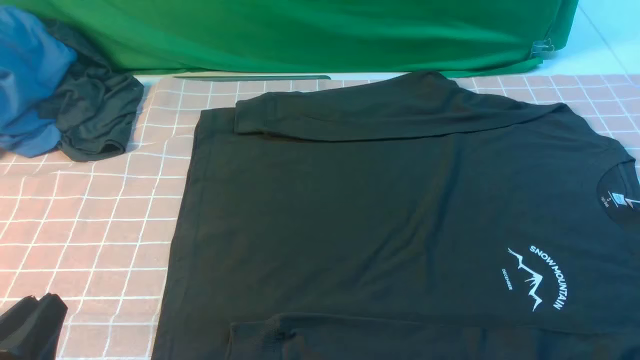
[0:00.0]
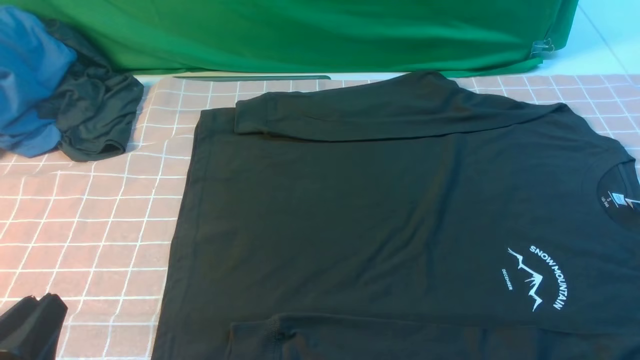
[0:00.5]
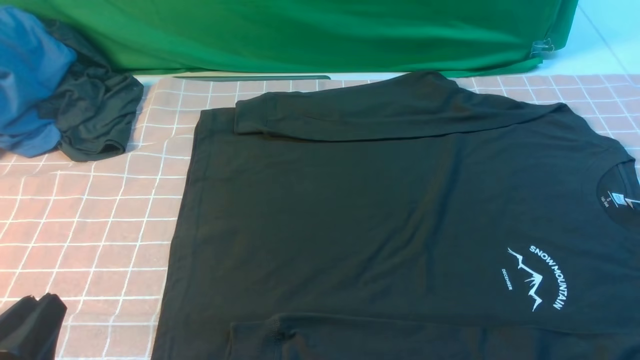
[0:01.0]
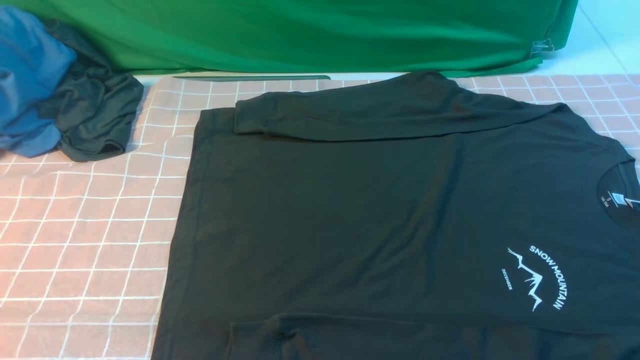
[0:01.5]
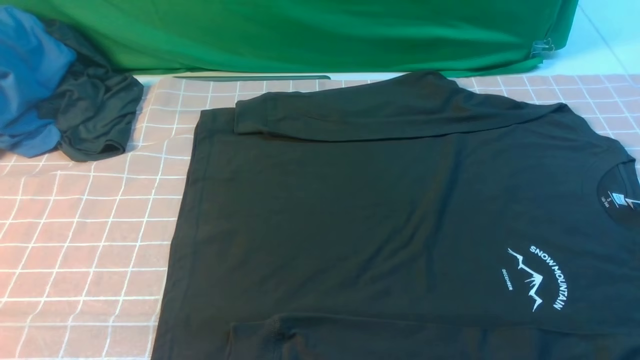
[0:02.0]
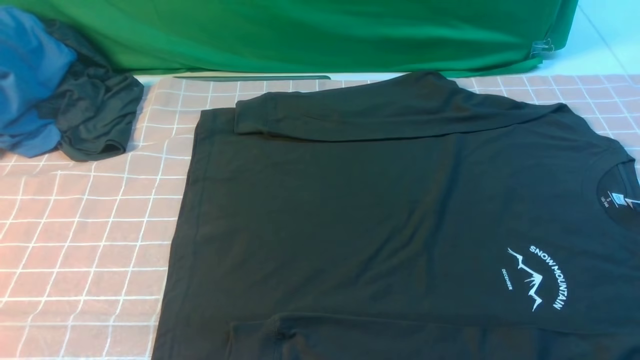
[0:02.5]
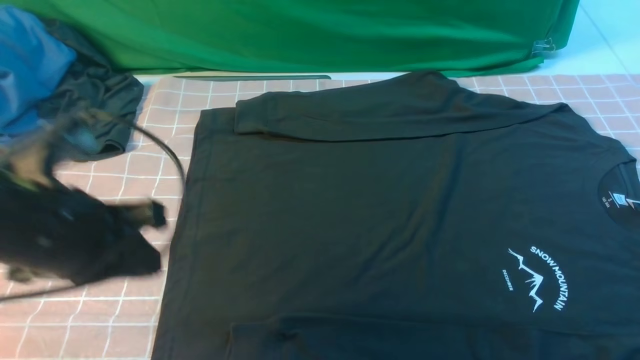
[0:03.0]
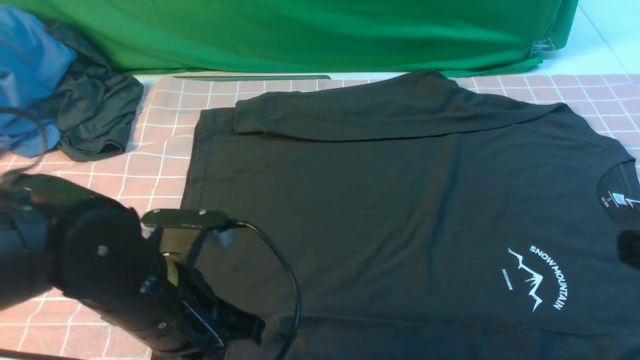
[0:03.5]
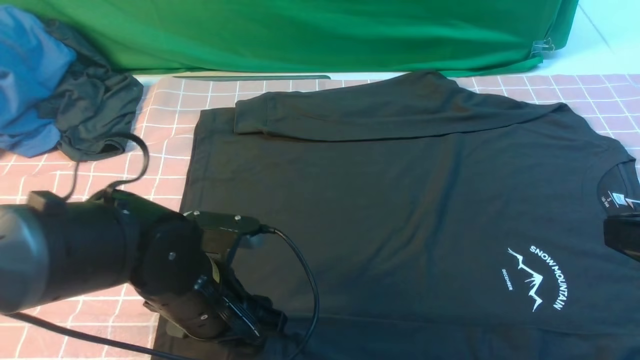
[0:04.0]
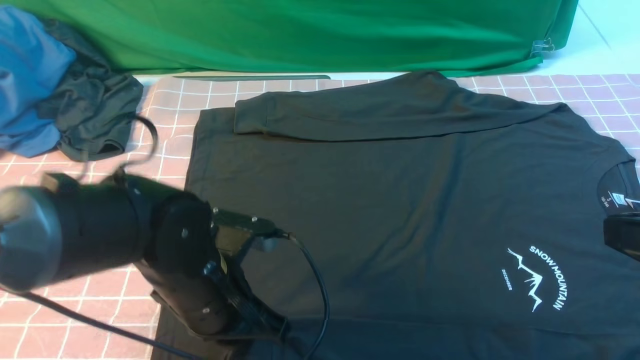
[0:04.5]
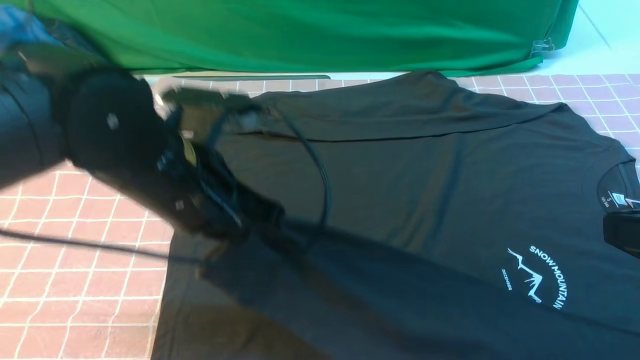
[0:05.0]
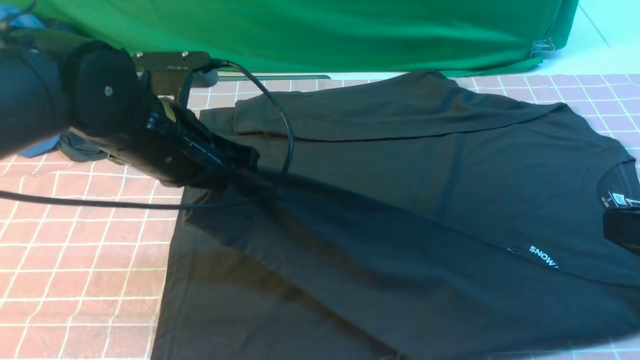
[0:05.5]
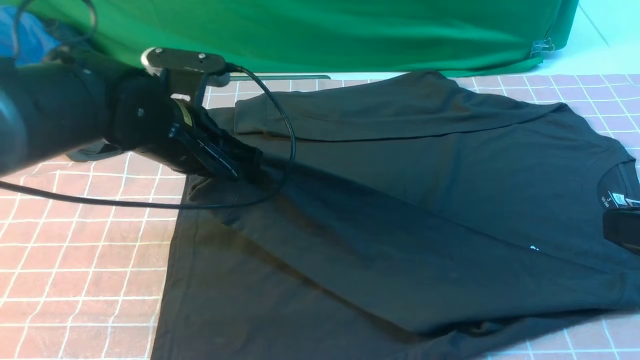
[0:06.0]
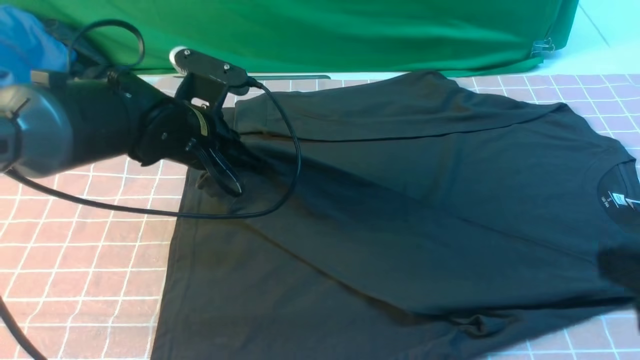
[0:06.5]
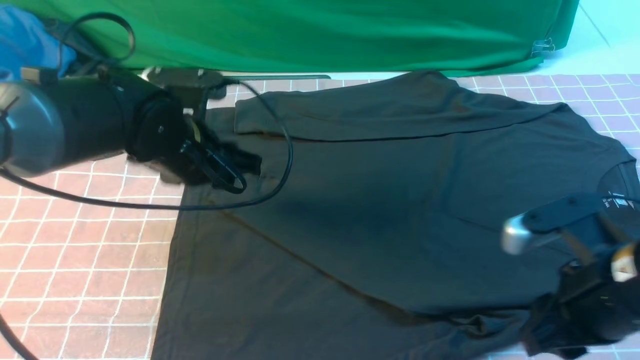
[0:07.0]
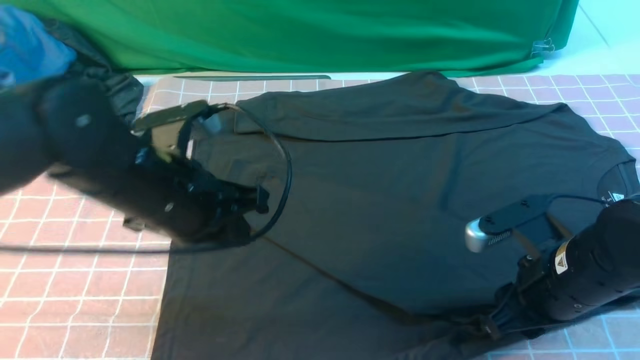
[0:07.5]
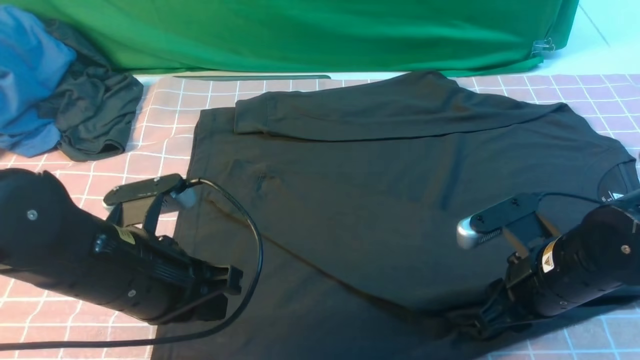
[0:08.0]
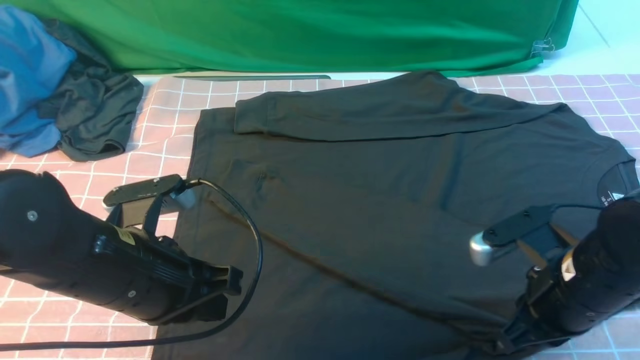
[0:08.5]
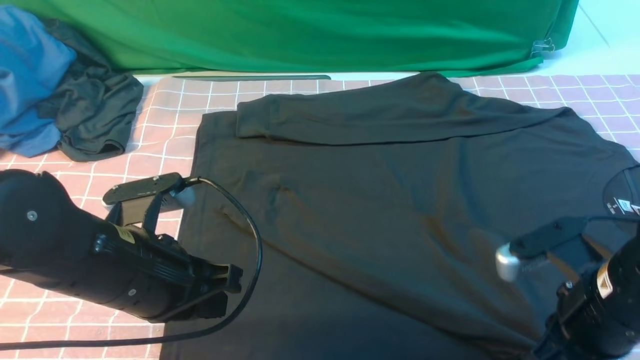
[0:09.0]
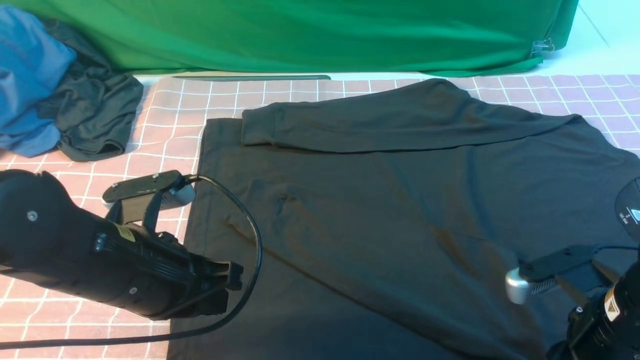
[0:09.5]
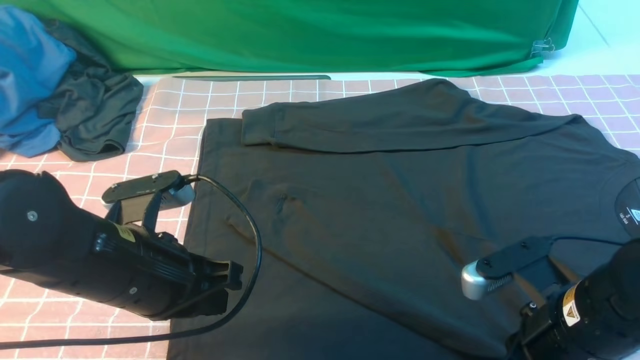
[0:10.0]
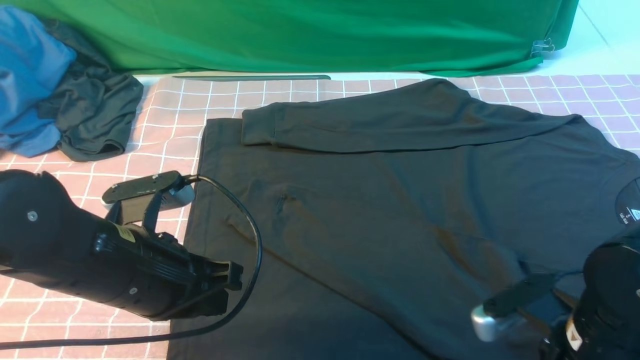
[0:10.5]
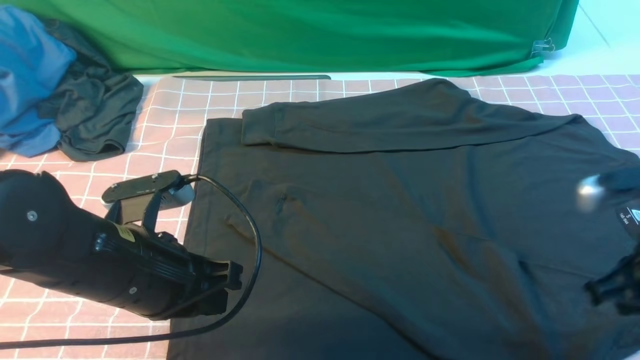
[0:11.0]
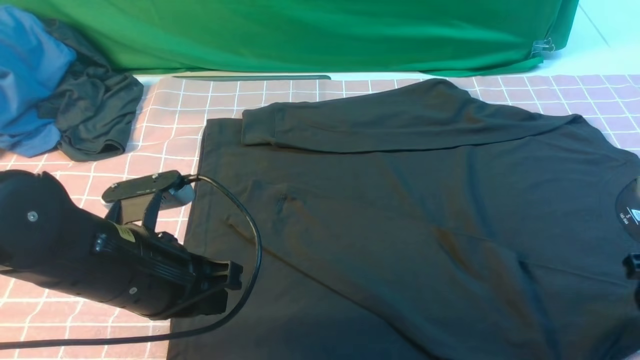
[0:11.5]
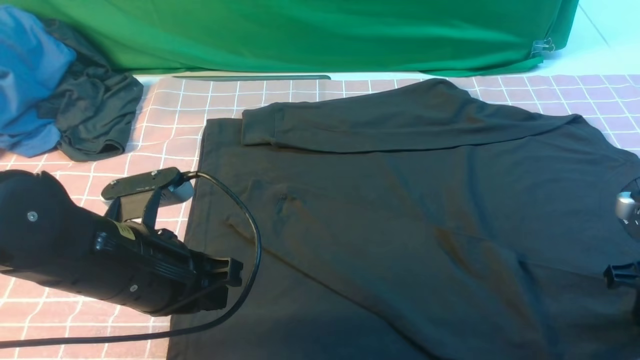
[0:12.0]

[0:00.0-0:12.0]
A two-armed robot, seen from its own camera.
Step, 0:00.0 to 0:04.5: use the left arm to clamp the cuff closest to it.
Step, 0:05.0 to 0:06.5: use the left arm to drag and place the cuff at the centered position on the left edge of the fabric.
0:00.0 to 0:02.0: The left gripper travels upward by about 5 cm.
0:02.0 to 0:04.0: The right gripper goes about 15 cm upward, forward and to the left, and closes its fingers, while the left gripper travels forward, to the right and downward by some 25 cm, and opens.
0:04.0 to 0:06.0: The left gripper moves forward and upward, roughly 15 cm, and closes its fingers.
0:06.0 to 0:08.0: The left gripper travels backward by roughly 15 cm, and opens, then closes again. The right gripper heads downward and forward, covering some 20 cm, and opens.
0:08.0 to 0:10.0: The right gripper heads backward, covering roughly 5 cm.
0:10.0 to 0:12.0: The right gripper heads to the right and forward, covering approximately 15 cm, and opens and closes again.

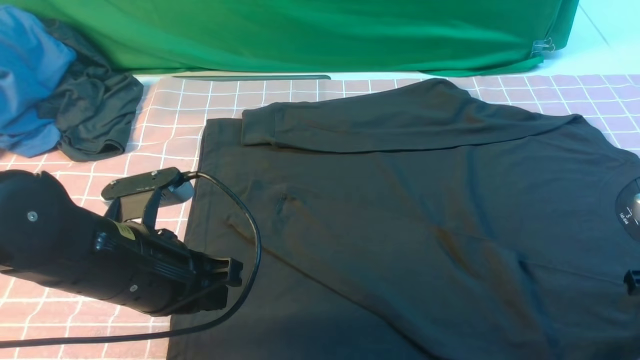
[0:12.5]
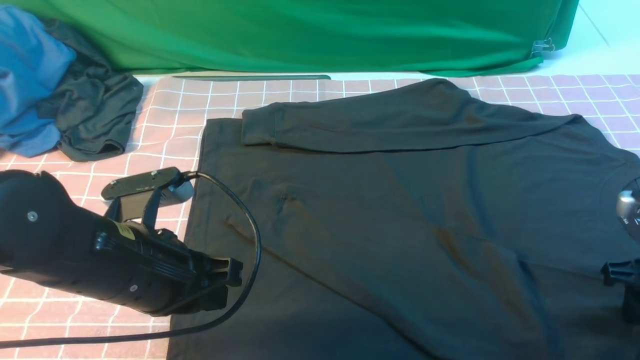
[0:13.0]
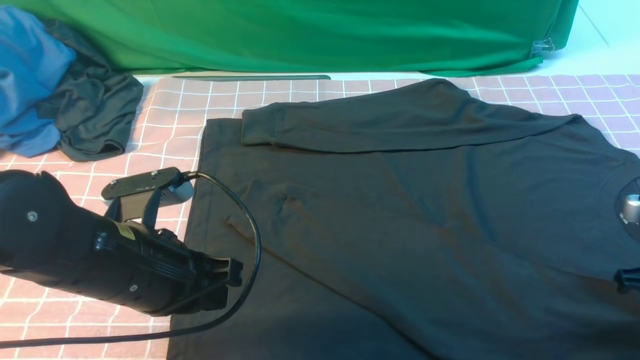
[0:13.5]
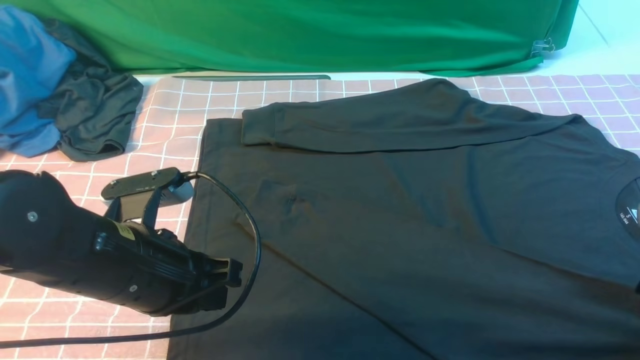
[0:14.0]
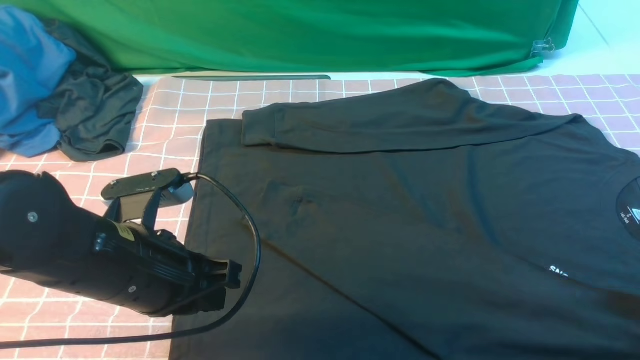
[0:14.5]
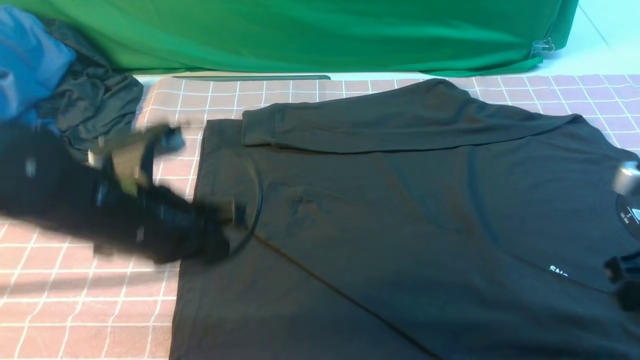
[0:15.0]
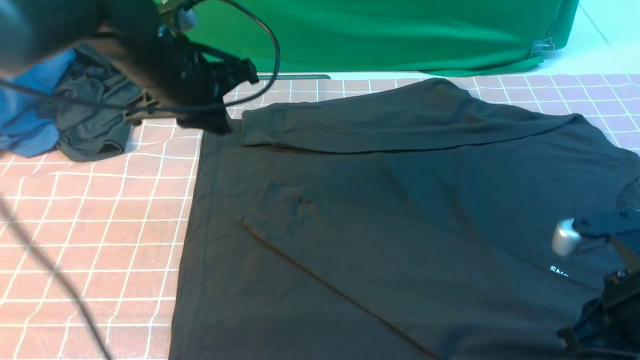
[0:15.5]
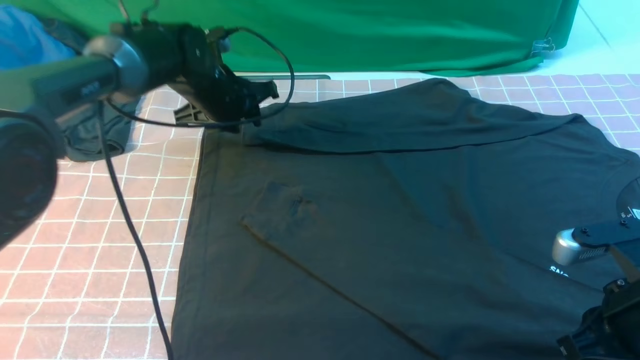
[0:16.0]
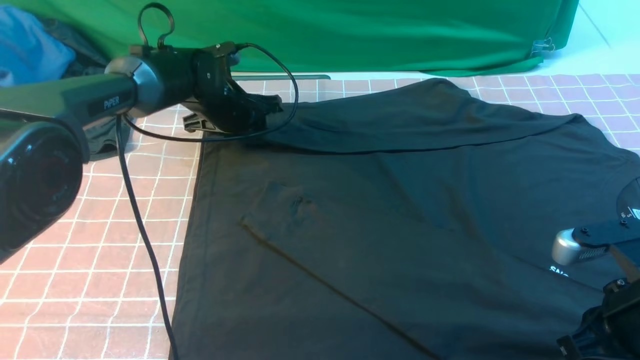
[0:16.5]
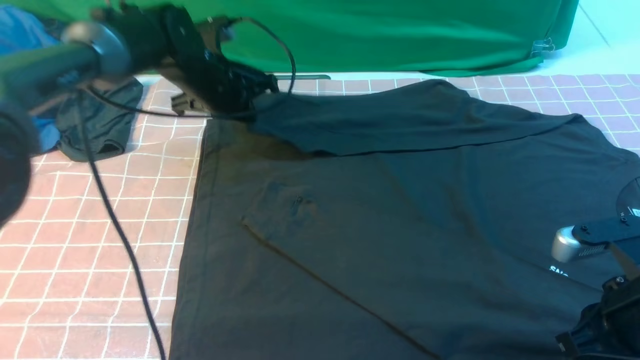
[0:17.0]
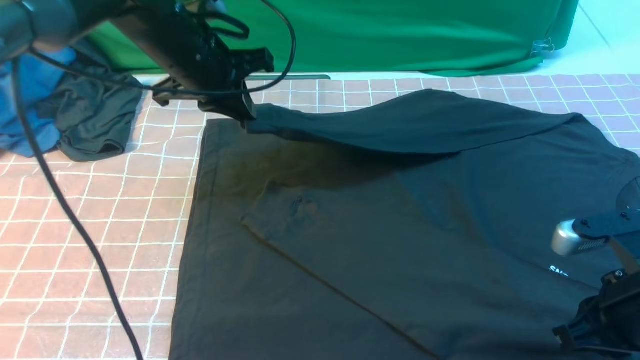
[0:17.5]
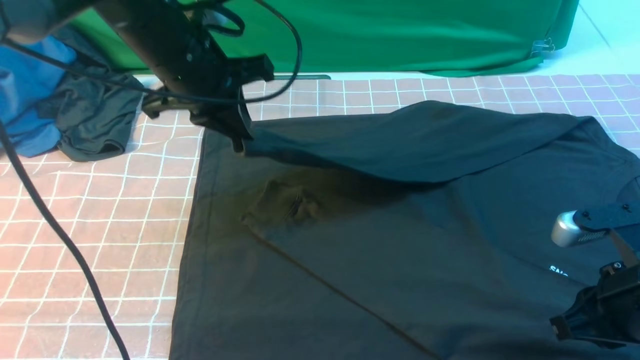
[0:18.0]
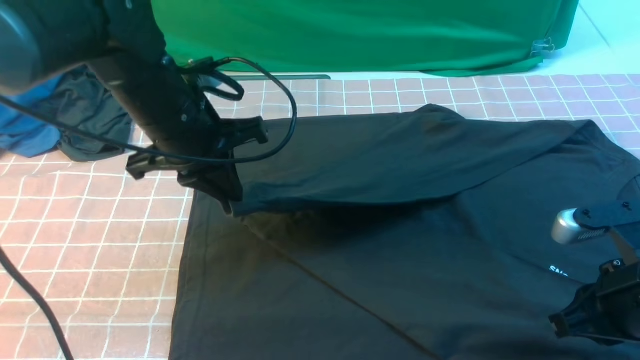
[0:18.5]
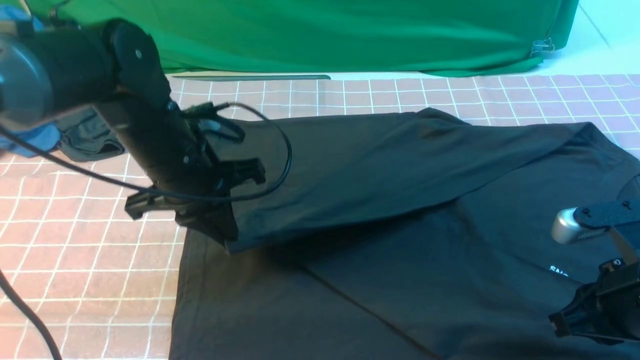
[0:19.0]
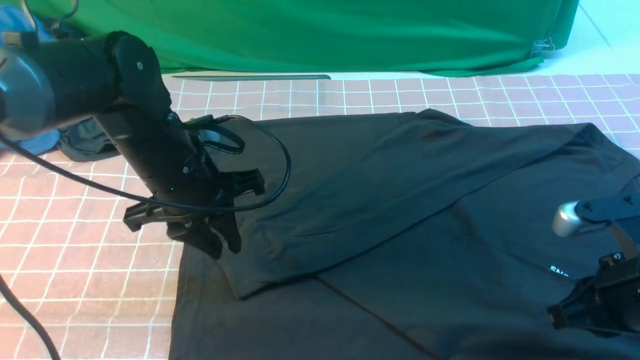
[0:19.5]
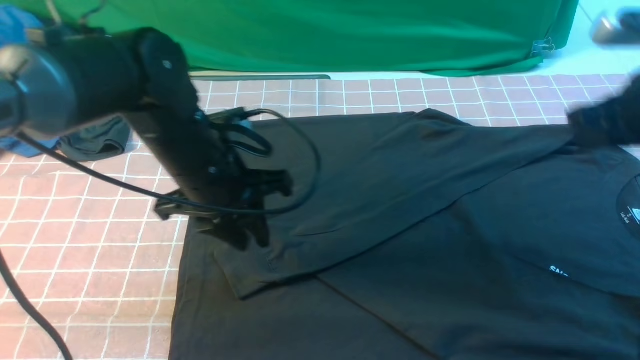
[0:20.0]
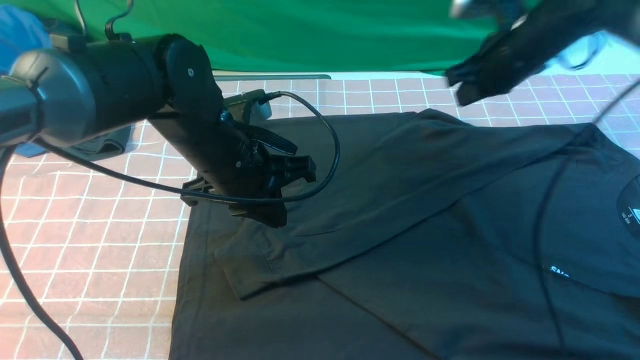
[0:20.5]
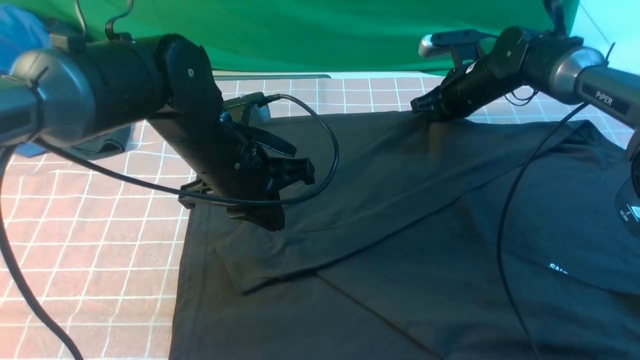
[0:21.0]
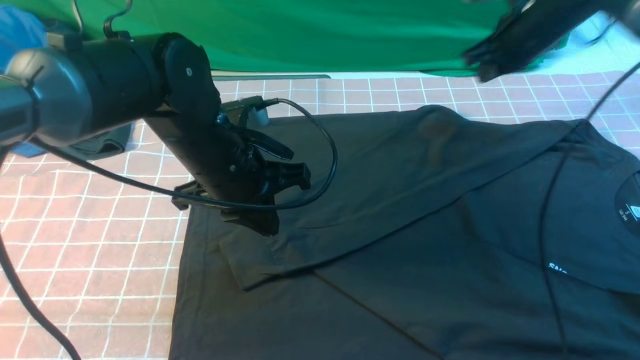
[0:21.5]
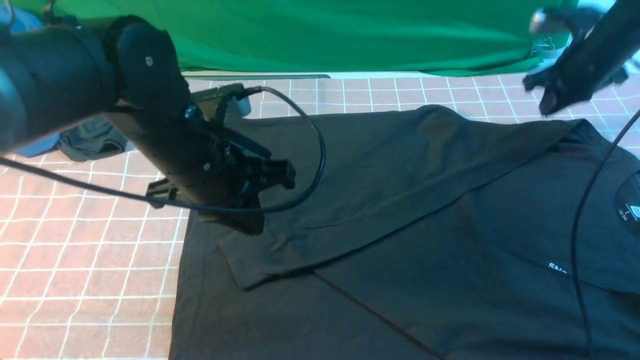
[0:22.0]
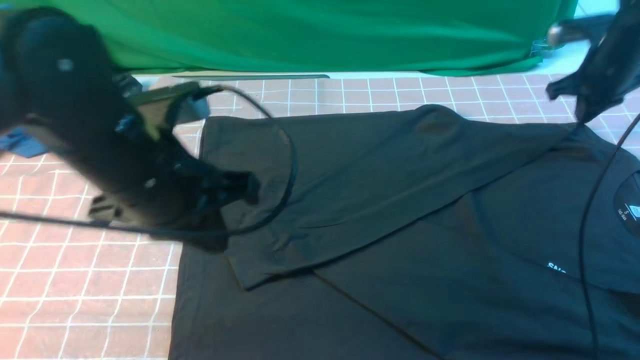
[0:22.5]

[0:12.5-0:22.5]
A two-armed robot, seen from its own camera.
Step, 0:12.5 to 0:16.5: use the left arm to clamp the cuff farthest from it.
Step, 0:17.0 to 0:20.0: use the left arm to drag and drop the cuff onto the cuff closest to the left arm.
0:12.5 to 0:14.5: There are only small adjustments of the grippers.
0:14.5 to 0:16.5: The left gripper shifts approximately 30 cm forward, and opens up. Meanwhile the right gripper goes about 10 cm to the left.
0:16.5 to 0:18.5: The left gripper heads backward and upward, covering about 20 cm, and closes its fingers.
0:18.5 to 0:20.5: The left gripper shifts by about 5 cm, and opens, then closes once more; the right gripper moves forward, approximately 30 cm.
0:20.5 to 0:22.5: The left gripper goes roughly 10 cm backward and upward; the right gripper is displaced to the right by roughly 15 cm.
